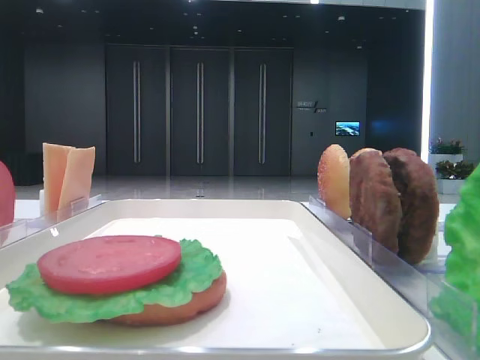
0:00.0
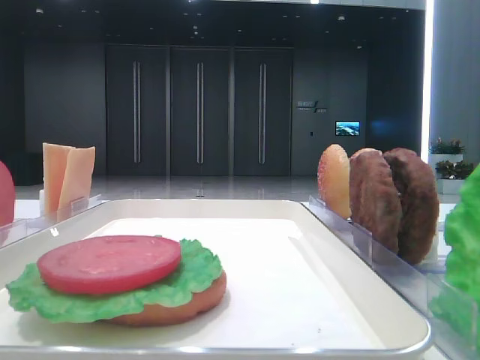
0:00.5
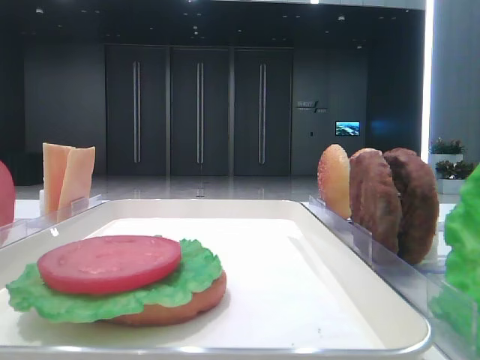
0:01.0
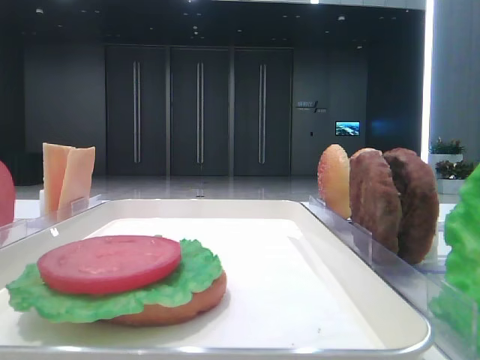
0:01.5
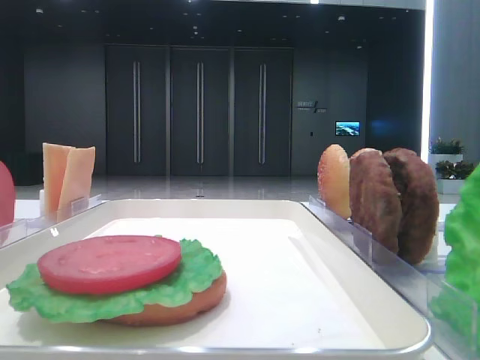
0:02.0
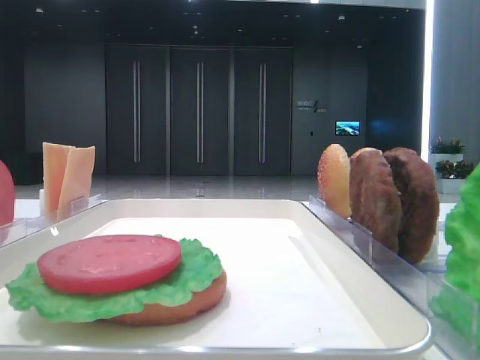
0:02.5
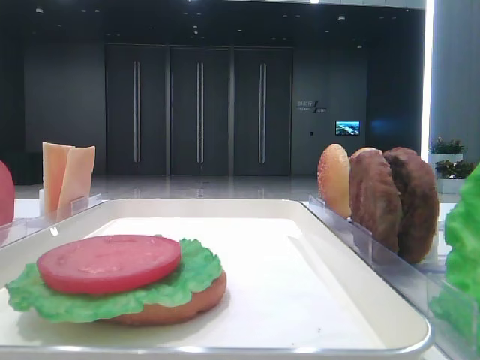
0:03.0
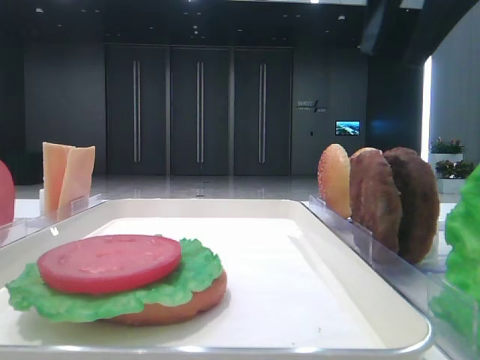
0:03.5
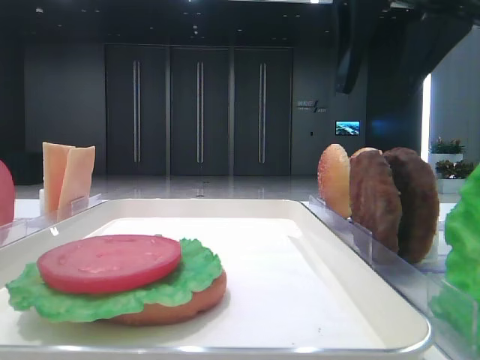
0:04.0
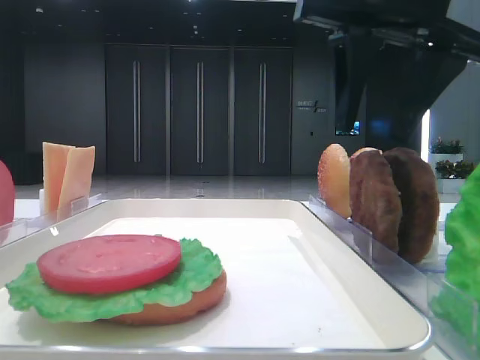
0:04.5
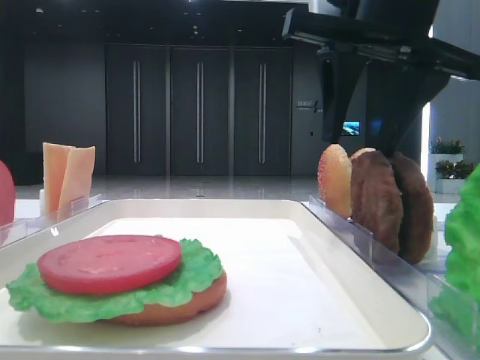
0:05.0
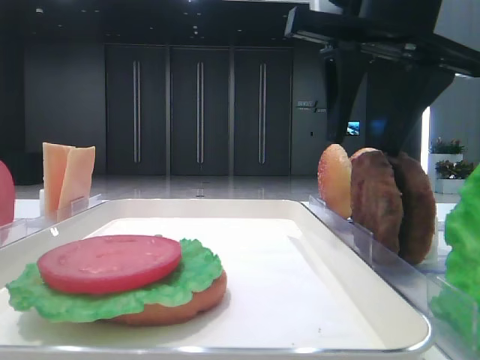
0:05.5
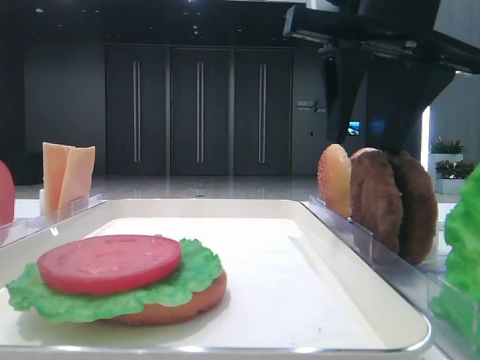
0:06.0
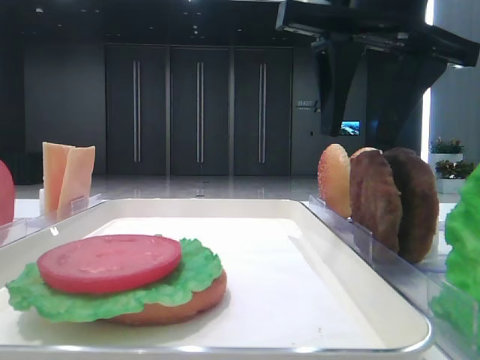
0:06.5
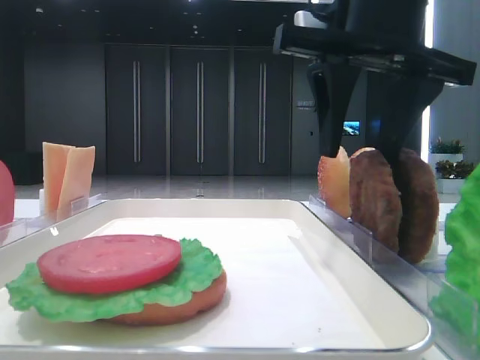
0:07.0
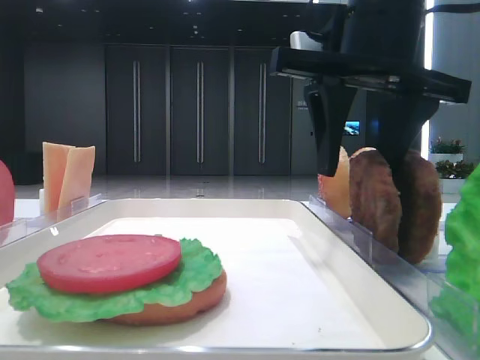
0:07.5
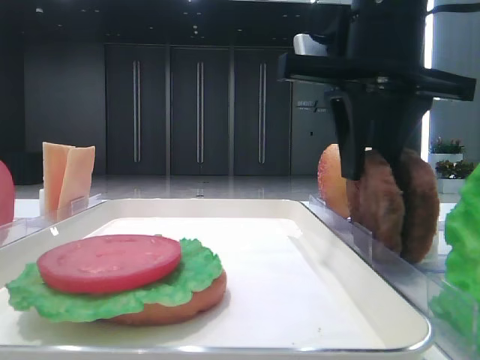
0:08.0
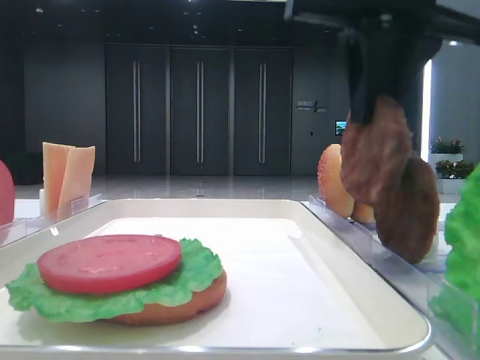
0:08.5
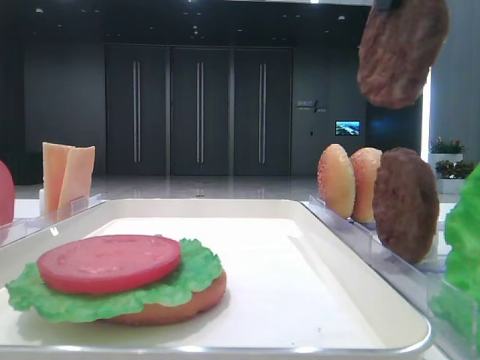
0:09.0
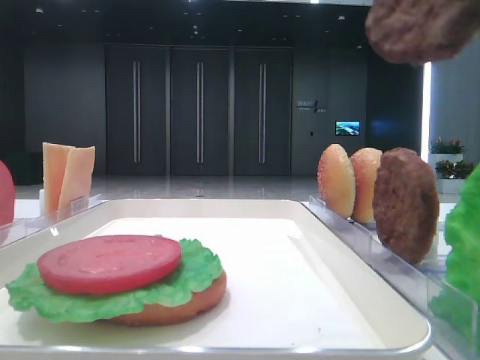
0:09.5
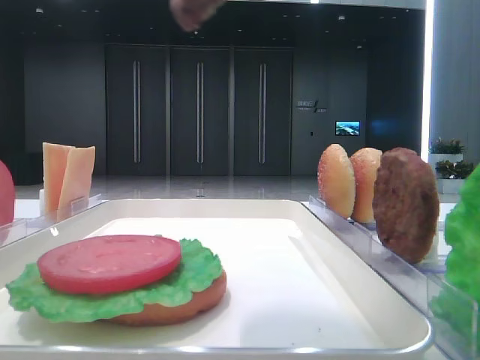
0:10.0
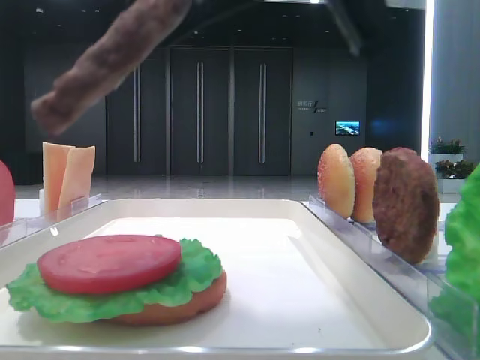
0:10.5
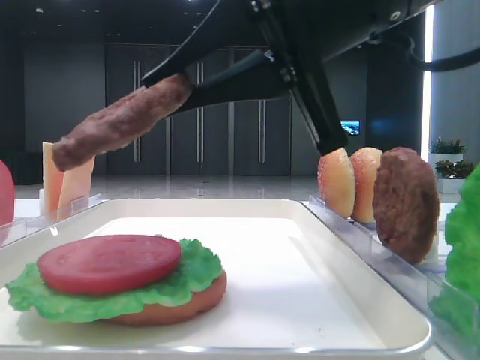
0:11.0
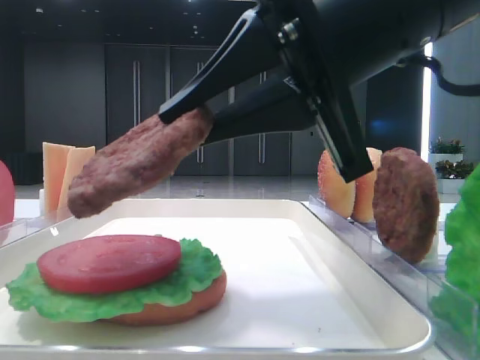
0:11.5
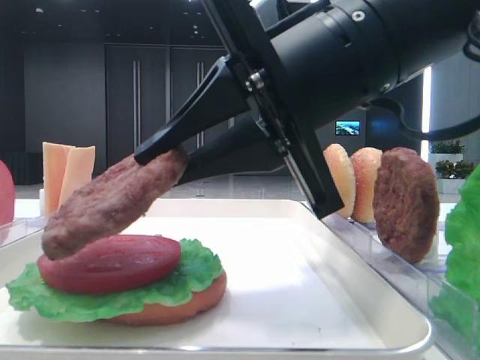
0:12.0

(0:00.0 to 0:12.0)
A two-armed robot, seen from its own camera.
Step, 0:00.0 - 0:07.5: Grab the patty with the right hand.
0:02.0 - 0:04.0: The right gripper shifts roughly 25 cm forward and to the left.
0:04.0 - 0:06.0: The grippers move only a little.
0:06.0 - 0:08.0: The right gripper closes its fingers.
0:08.0 - 0:10.0: The right gripper shifts some 20 cm backward and upward.
0:10.0 - 0:12.0: The right gripper is displaced downward and forward by some 15 cm.

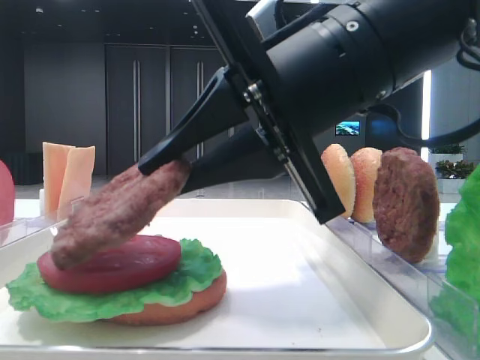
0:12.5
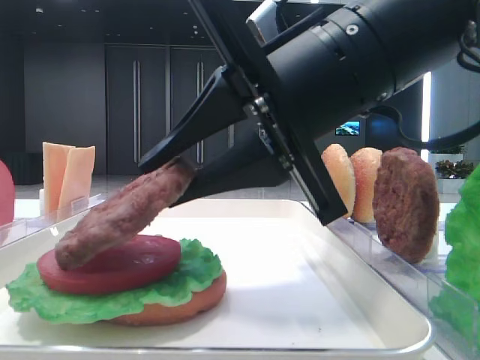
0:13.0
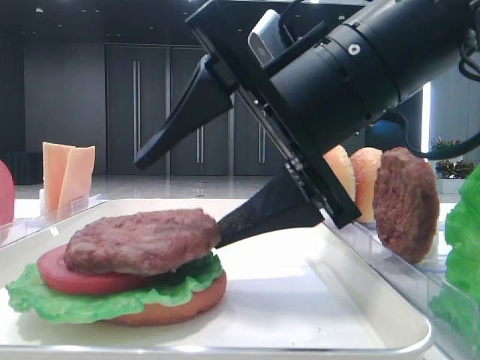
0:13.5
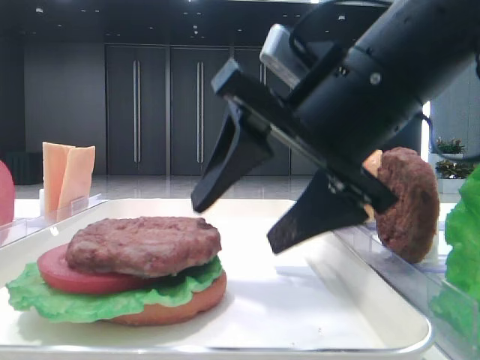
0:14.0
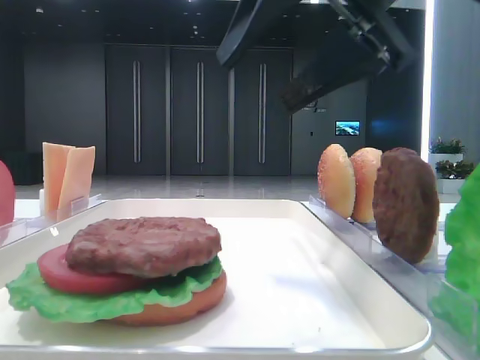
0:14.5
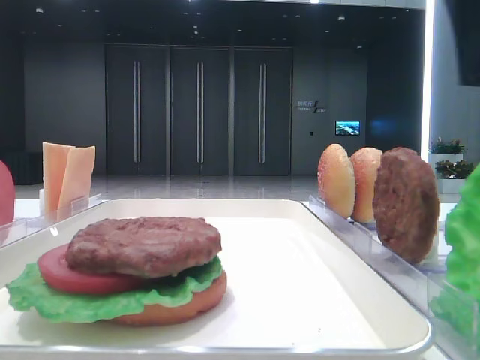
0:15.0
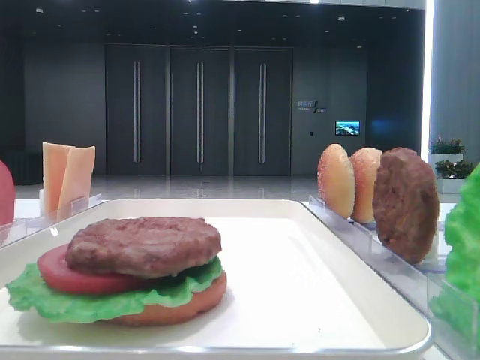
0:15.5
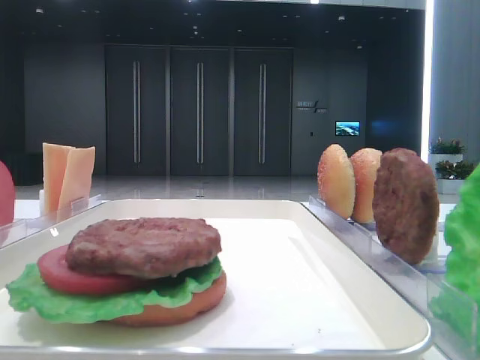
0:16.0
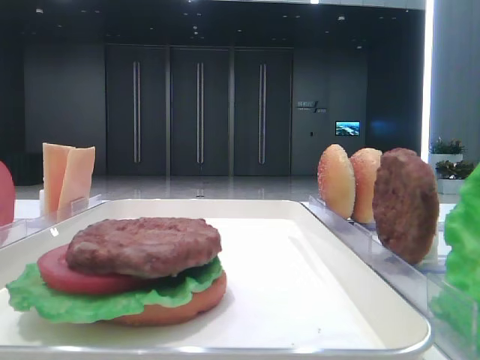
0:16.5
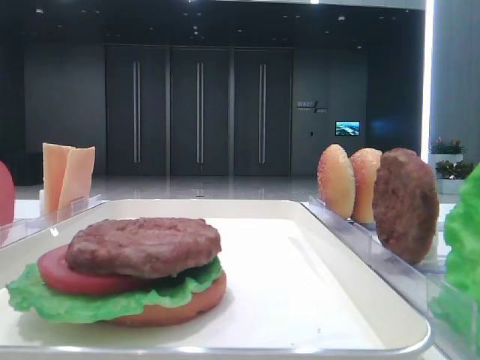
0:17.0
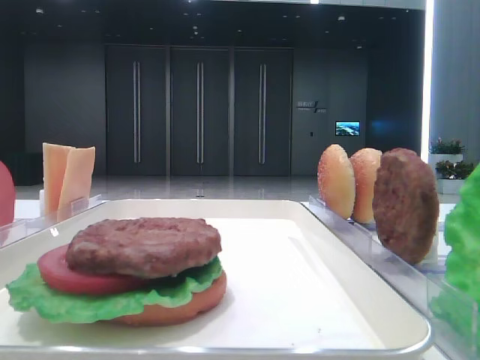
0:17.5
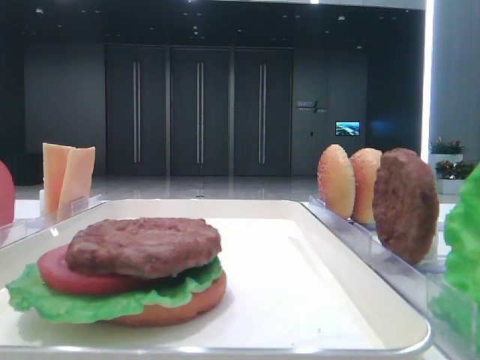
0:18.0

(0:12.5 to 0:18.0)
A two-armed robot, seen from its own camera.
0:12.5 - 0:14.5: The right gripper moves upward, roughly 10 cm, and opens its fingers.
0:14.5 - 0:16.0: The right gripper is displaced to the right, backward and upward by about 25 cm.

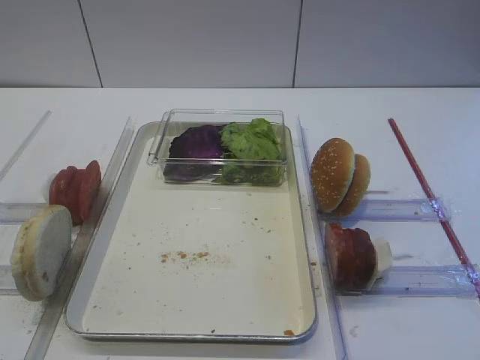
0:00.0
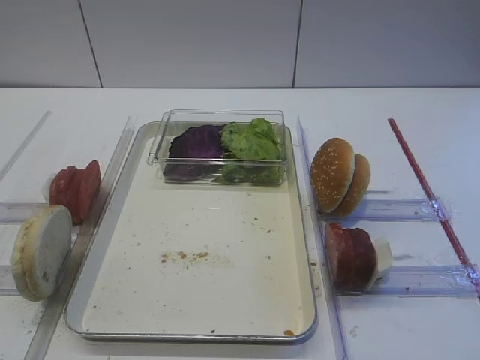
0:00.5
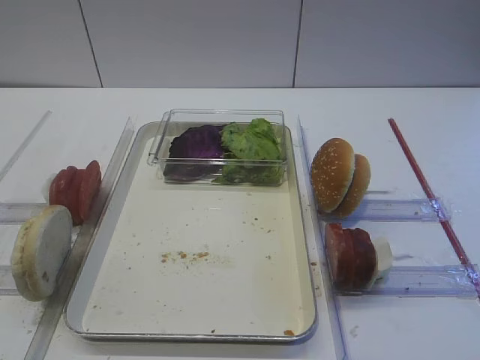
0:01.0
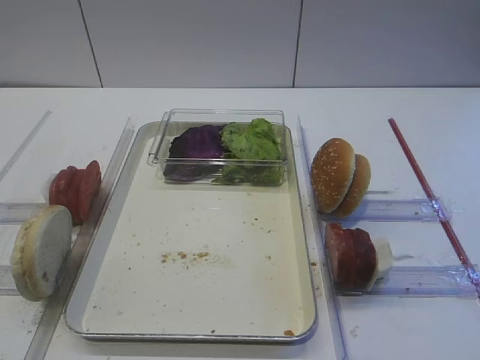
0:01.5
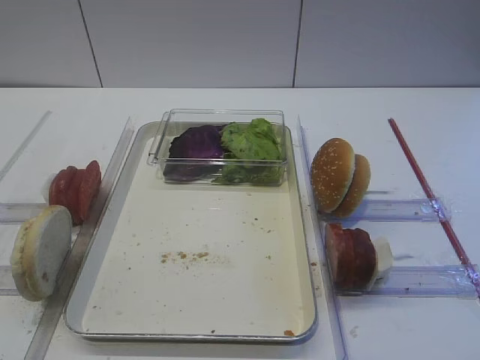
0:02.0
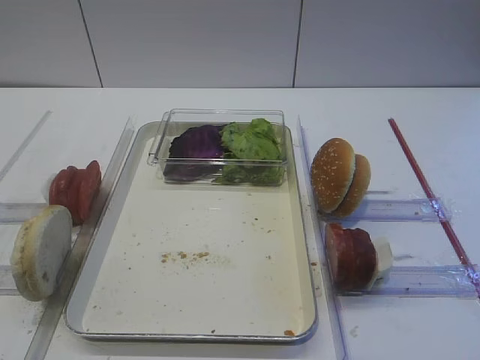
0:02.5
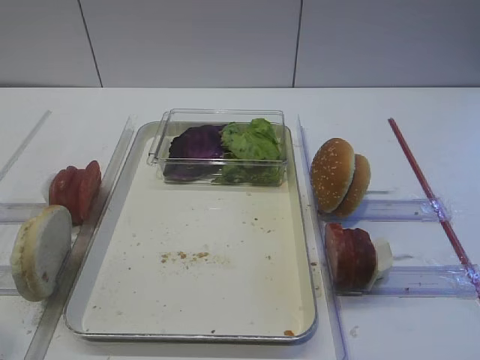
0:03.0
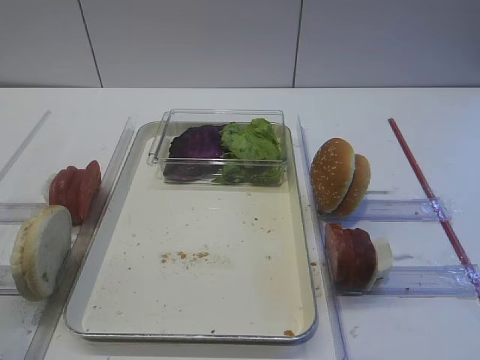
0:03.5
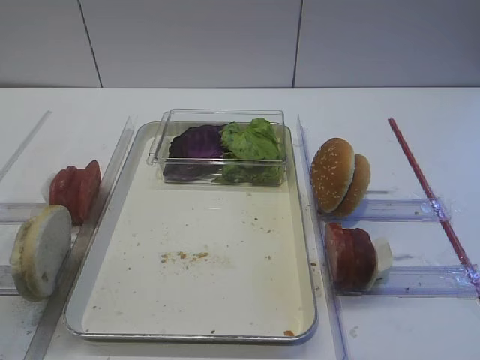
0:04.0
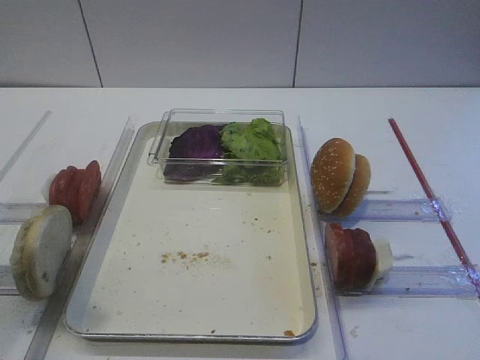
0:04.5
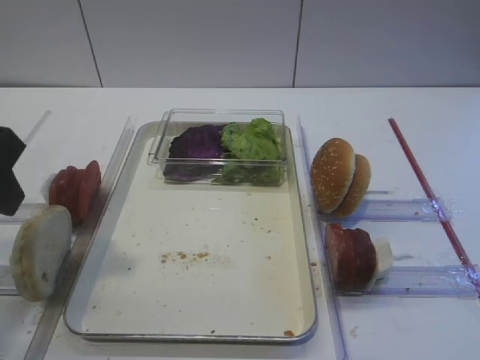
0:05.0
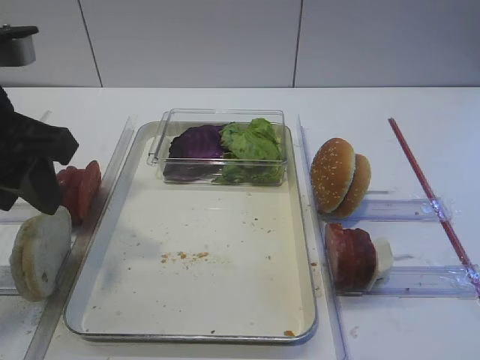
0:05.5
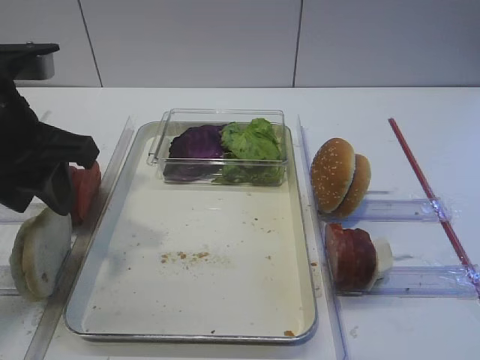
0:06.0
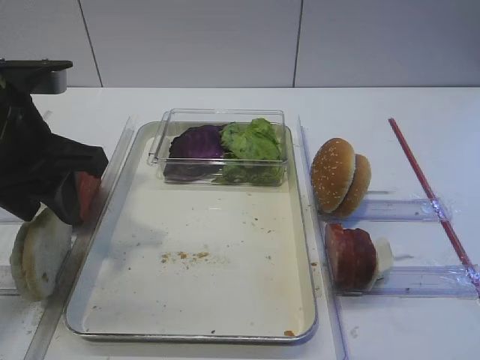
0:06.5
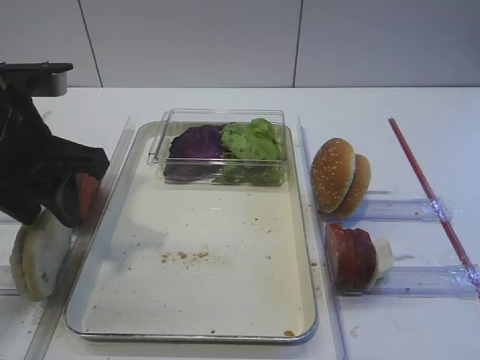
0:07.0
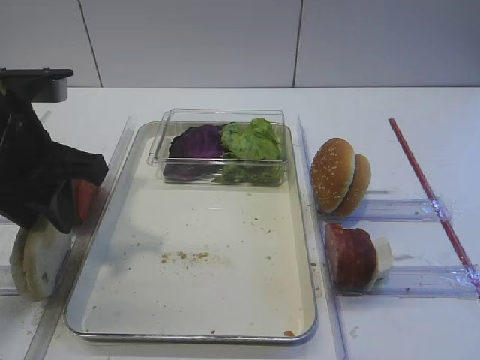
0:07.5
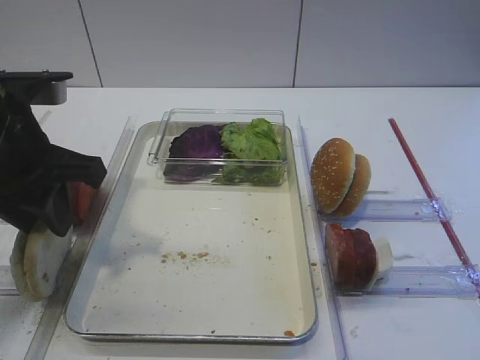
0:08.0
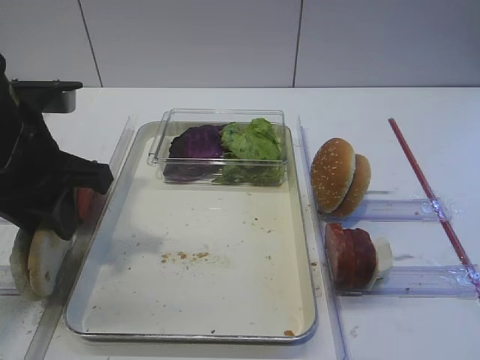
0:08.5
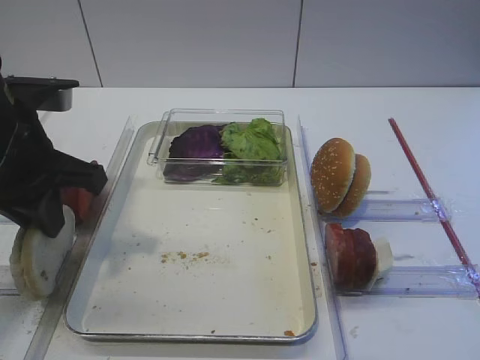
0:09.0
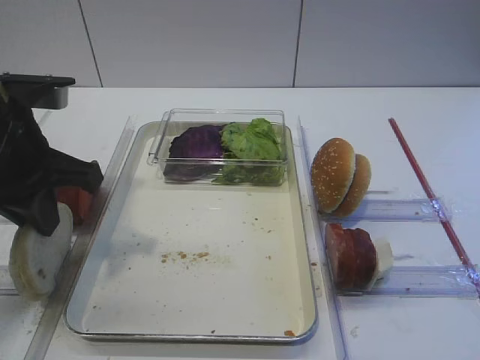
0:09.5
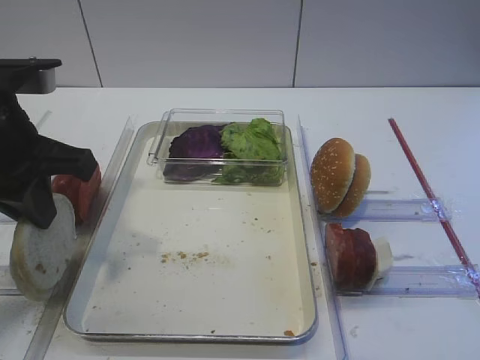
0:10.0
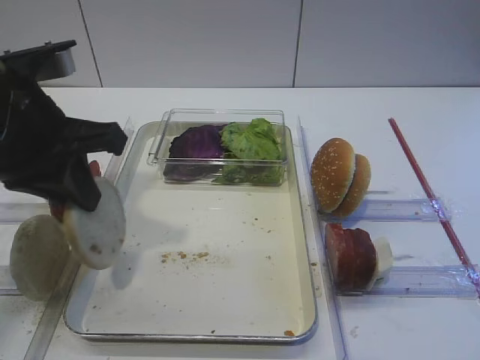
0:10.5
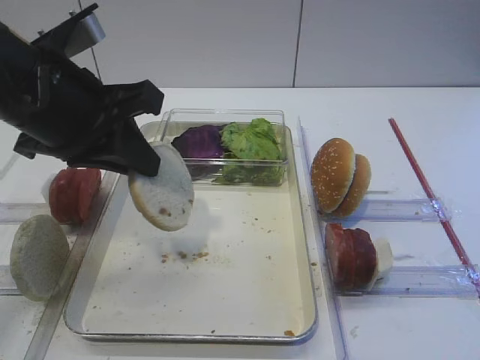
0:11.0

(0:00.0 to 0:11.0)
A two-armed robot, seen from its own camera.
Step, 0:00.0 - 0:10.0: Pick up the bread slice with the left gripper.
0:02.0 - 0:03.5: The left gripper shifts approximately 10 cm upward and forward.
0:03.5 - 0:05.5: The left gripper moves forward, about 15 cm.
0:05.5 - 0:07.5: The grippers make only small movements.
0:07.5 - 0:09.0: The left gripper closes up.
